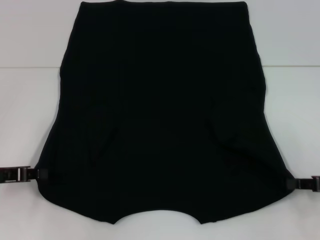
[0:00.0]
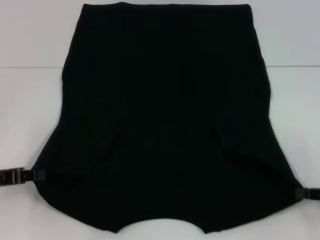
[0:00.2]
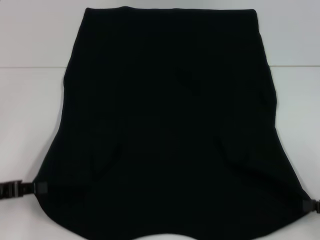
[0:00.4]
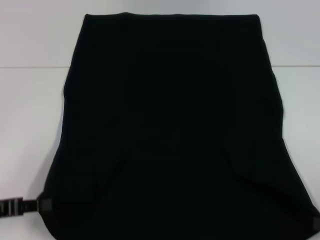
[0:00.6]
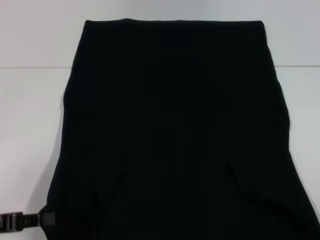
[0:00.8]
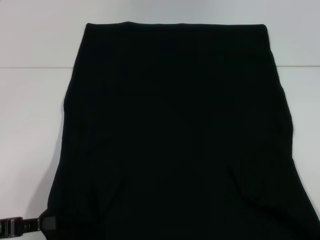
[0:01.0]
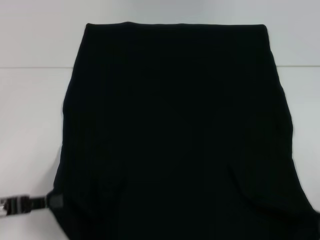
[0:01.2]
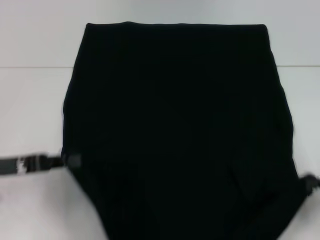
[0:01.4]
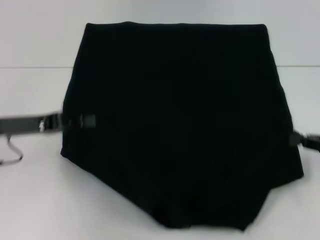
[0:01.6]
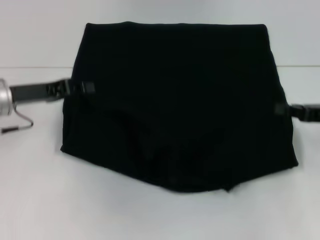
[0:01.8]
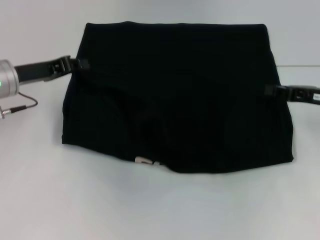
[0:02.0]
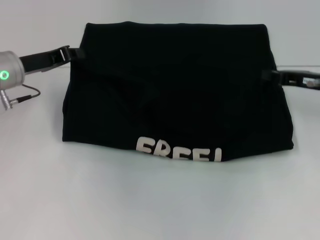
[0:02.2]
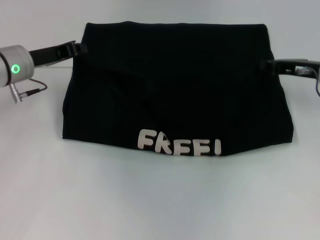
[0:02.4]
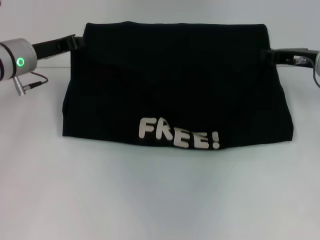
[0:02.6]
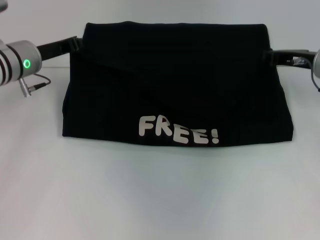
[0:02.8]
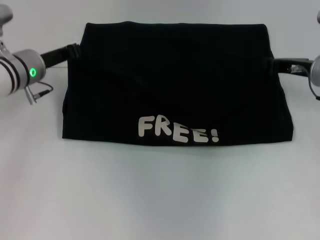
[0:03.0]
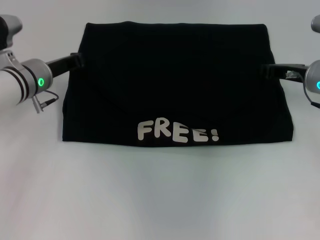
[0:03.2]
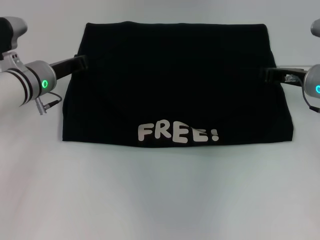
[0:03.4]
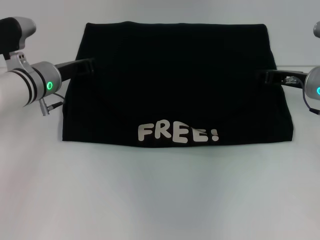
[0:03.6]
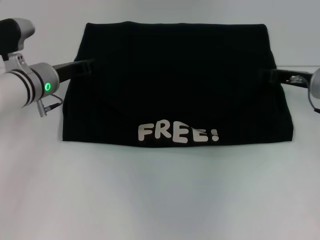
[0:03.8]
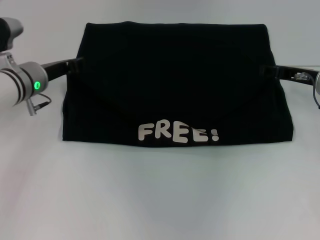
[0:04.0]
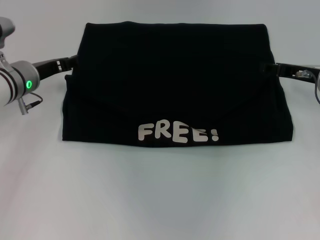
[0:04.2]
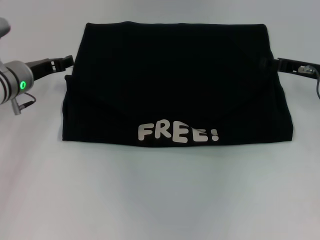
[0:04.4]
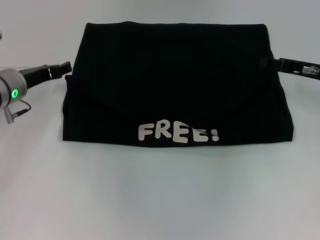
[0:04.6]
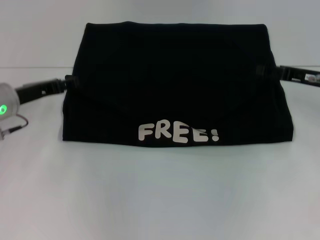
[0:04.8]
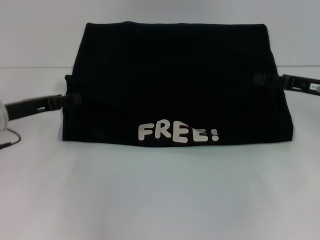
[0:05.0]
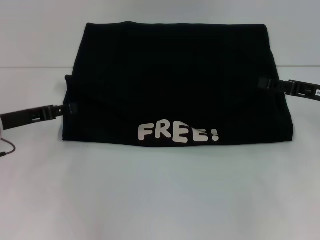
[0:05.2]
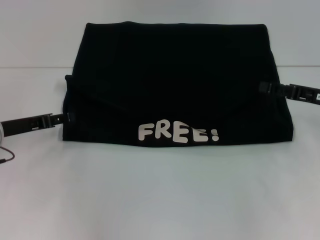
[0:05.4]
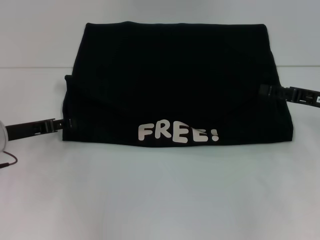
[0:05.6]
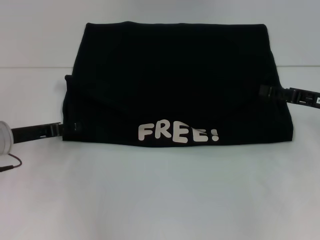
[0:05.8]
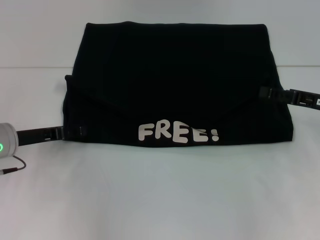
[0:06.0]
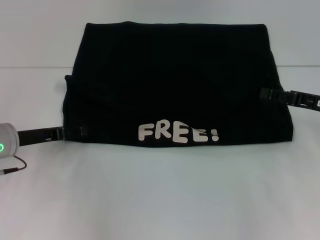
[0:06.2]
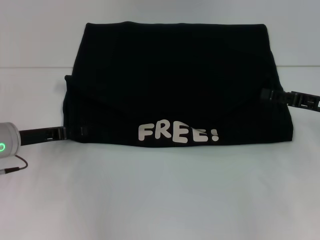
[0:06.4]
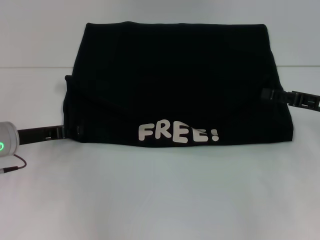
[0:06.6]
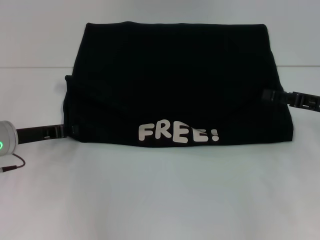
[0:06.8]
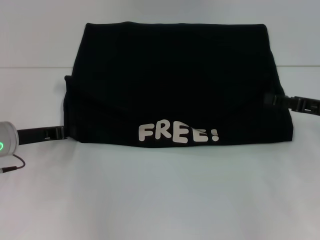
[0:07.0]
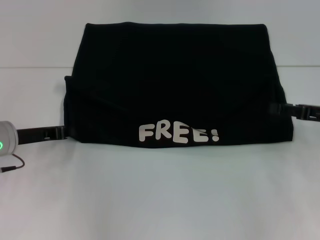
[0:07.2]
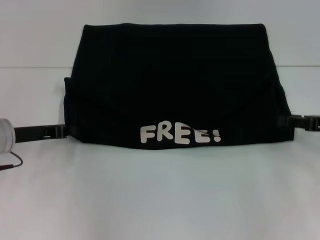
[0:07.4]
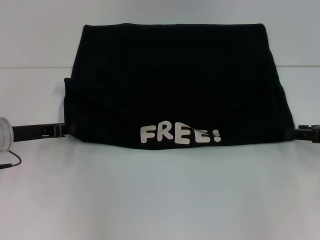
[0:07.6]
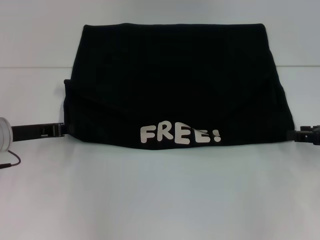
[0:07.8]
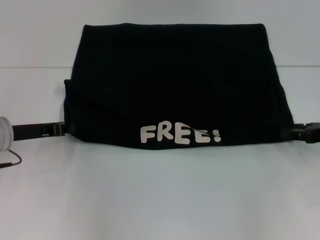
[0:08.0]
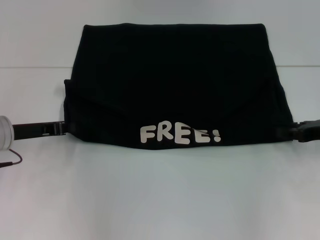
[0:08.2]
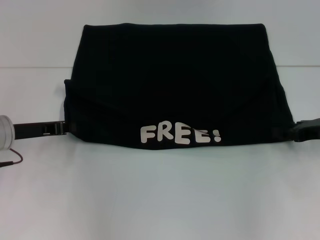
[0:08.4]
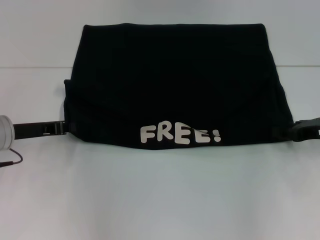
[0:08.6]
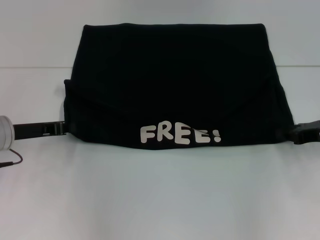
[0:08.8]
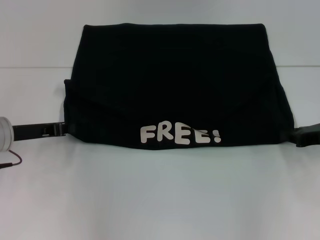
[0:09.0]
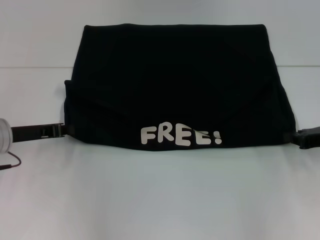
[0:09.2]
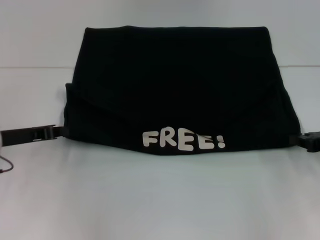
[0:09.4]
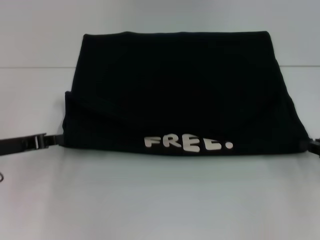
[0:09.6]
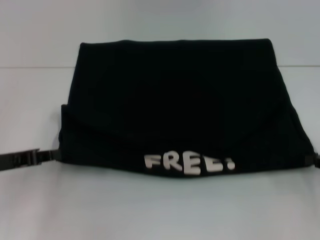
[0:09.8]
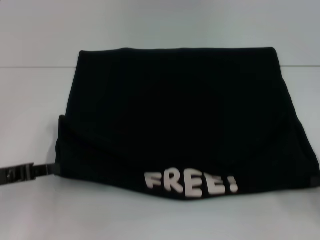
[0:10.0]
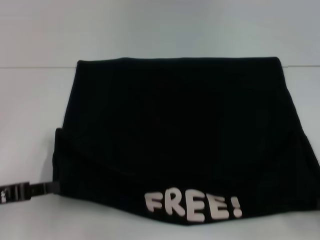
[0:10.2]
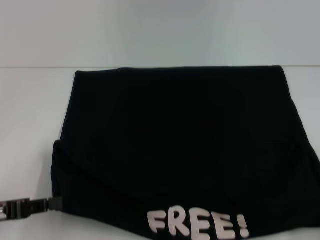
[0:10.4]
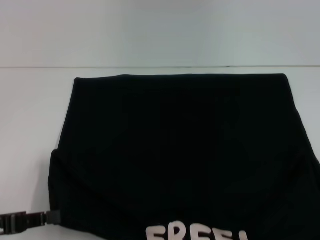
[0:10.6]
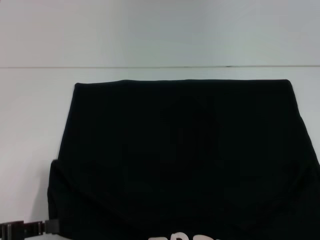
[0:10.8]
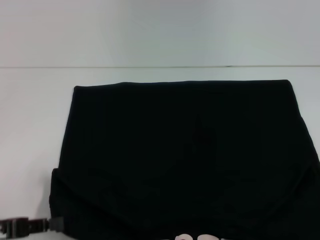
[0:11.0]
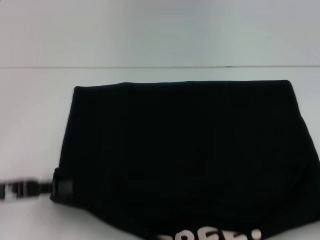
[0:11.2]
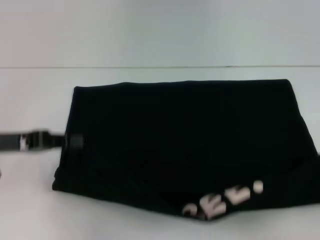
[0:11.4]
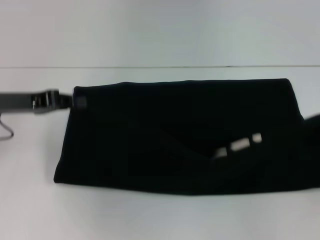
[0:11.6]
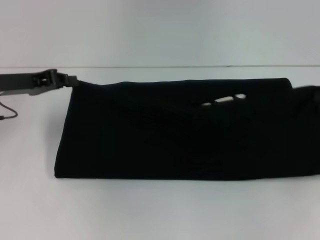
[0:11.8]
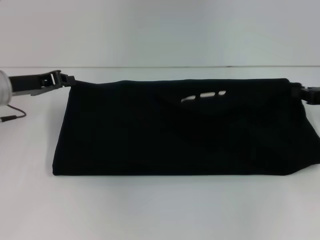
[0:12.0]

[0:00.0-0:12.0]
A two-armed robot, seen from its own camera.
Step, 0:00.0 to 0:04.0: Fold the clothes with your left hand.
Step, 0:00.0 to 0:04.0: Fold the clothes with your right hand.
Step, 0:04.2 to 0:10.8: Pull the clothes with your left hand.
Step, 0:04.2 to 0:10.8: Pull the clothes with your right hand.
0:00.0 to 0:01.6: The left gripper shifts by approximately 10 cm; the right gripper travels backward and back again, approximately 10 cm each way.
0:01.6 to 0:03.0: The left gripper travels forward by approximately 10 cm. Meanwhile the right gripper travels forward and to the left by roughly 15 cm.
0:03.0 to 0:04.4: The left gripper opens up. Meanwhile the right gripper opens up.
0:04.4 to 0:06.0: The grippers both shift backward by approximately 10 cm.
0:06.0 to 0:07.6: The left gripper closes its fingers.
0:07.6 to 0:09.0: The grippers move only a little.
0:09.0 to 0:10.4: The left gripper travels backward by roughly 15 cm, while the right gripper moves backward and to the right, approximately 20 cm.
0:10.4 to 0:12.0: The two grippers go some 20 cm forward.

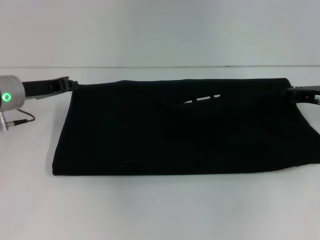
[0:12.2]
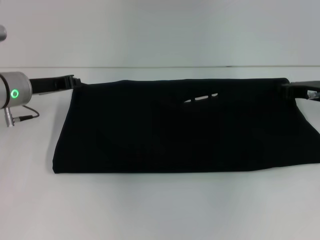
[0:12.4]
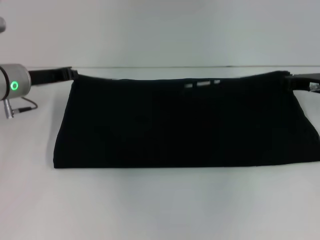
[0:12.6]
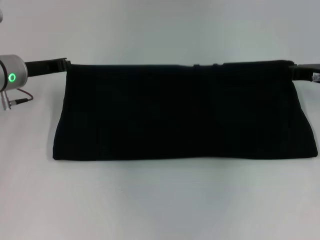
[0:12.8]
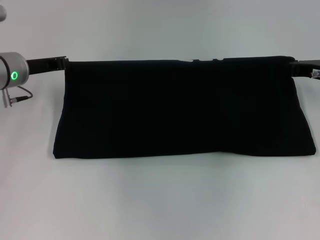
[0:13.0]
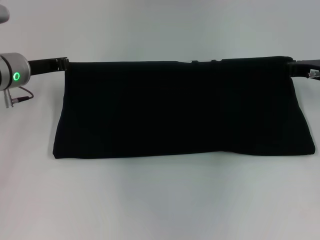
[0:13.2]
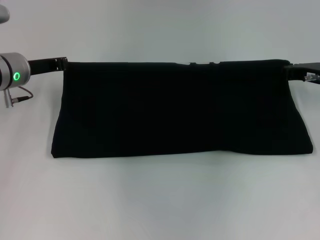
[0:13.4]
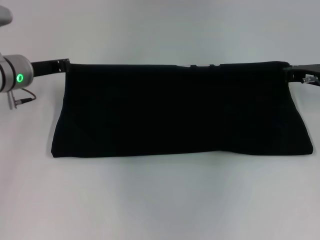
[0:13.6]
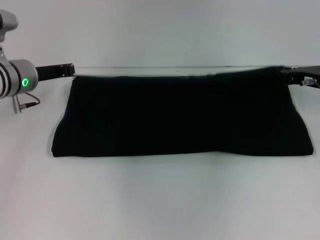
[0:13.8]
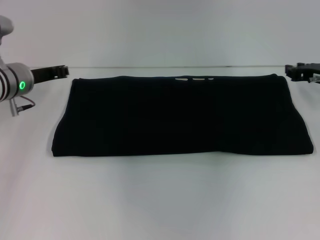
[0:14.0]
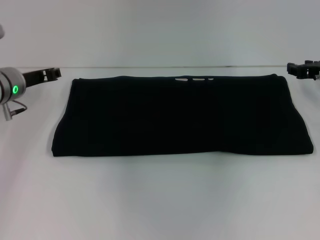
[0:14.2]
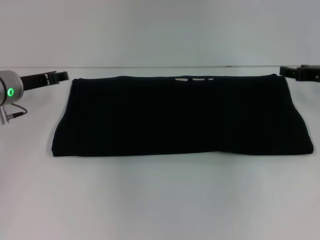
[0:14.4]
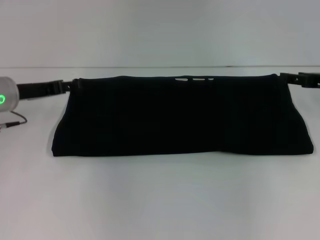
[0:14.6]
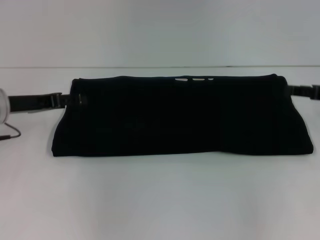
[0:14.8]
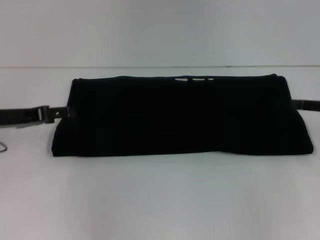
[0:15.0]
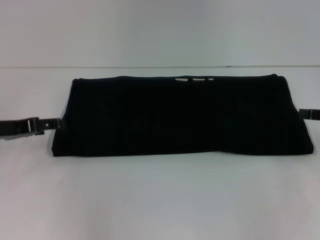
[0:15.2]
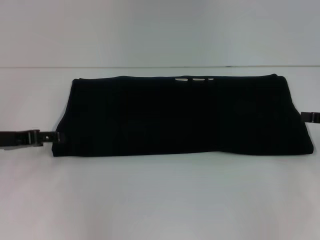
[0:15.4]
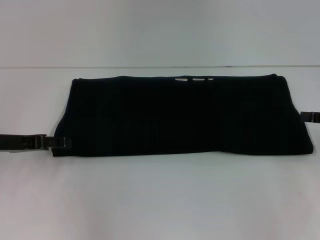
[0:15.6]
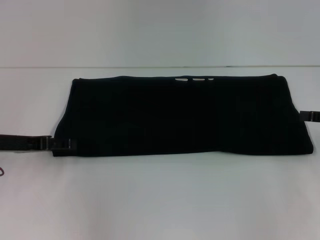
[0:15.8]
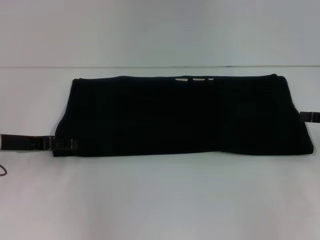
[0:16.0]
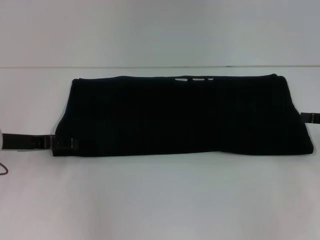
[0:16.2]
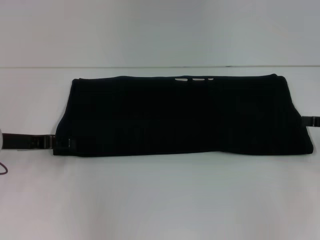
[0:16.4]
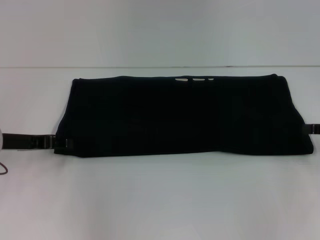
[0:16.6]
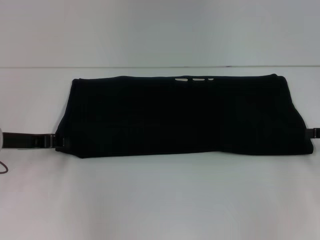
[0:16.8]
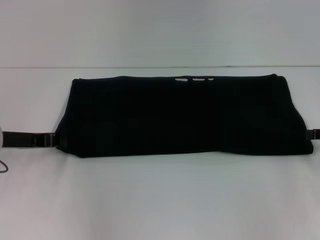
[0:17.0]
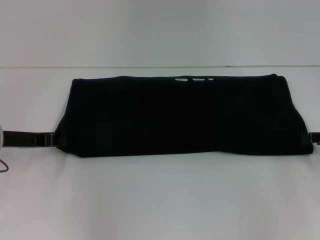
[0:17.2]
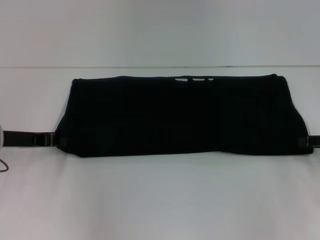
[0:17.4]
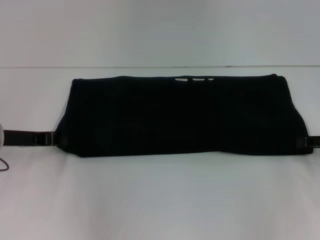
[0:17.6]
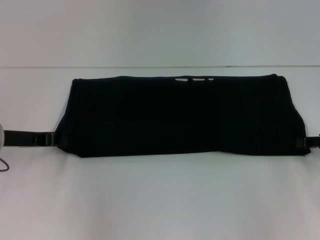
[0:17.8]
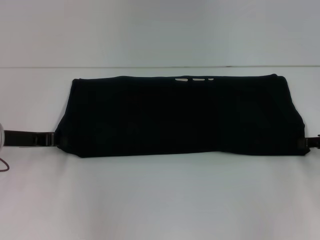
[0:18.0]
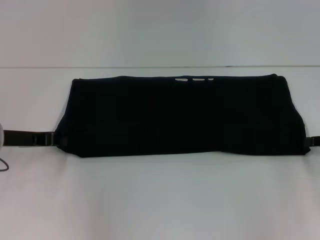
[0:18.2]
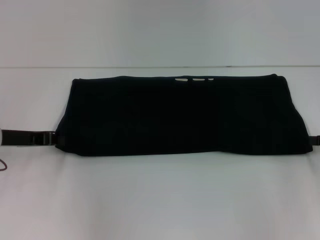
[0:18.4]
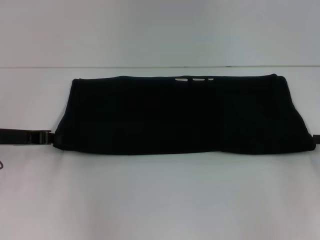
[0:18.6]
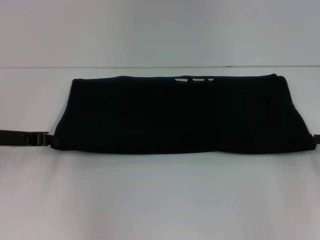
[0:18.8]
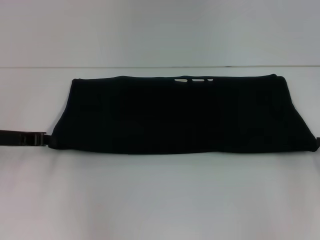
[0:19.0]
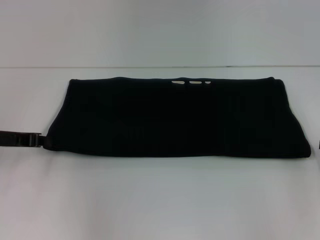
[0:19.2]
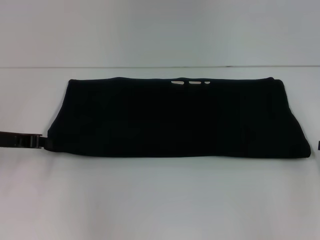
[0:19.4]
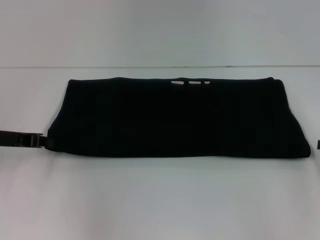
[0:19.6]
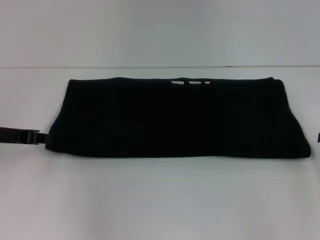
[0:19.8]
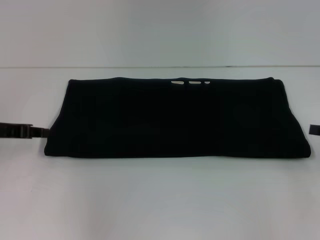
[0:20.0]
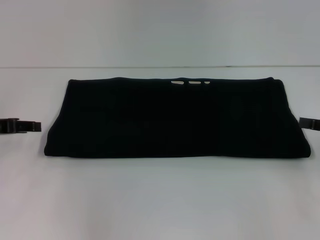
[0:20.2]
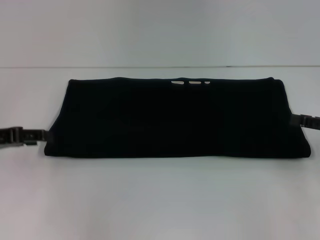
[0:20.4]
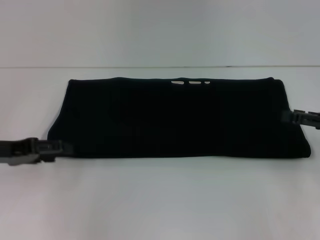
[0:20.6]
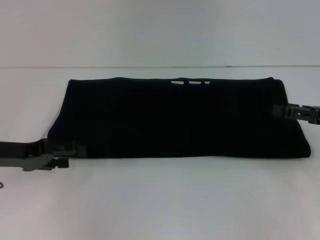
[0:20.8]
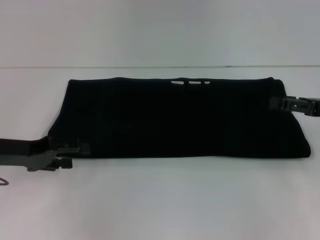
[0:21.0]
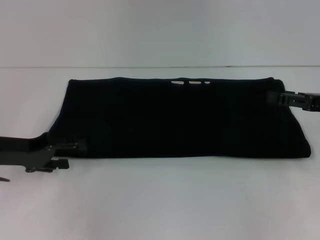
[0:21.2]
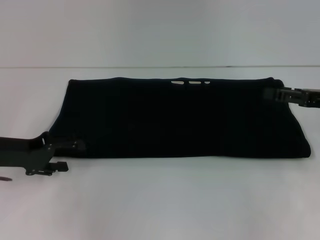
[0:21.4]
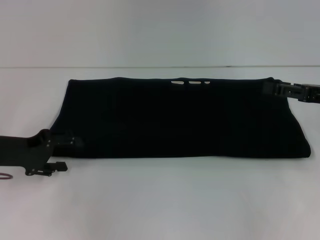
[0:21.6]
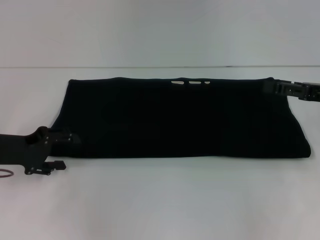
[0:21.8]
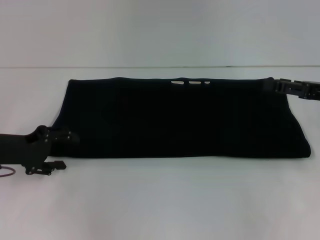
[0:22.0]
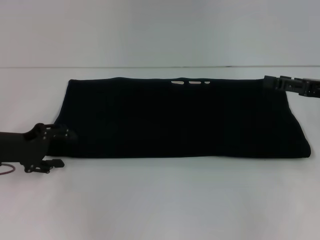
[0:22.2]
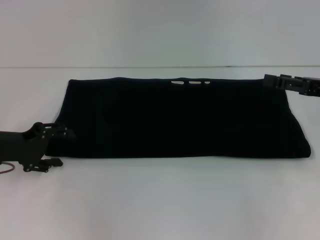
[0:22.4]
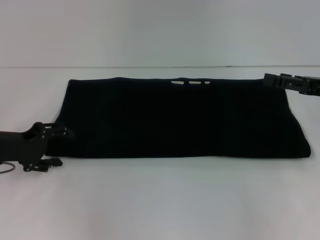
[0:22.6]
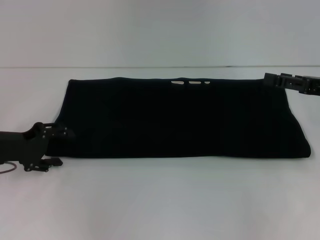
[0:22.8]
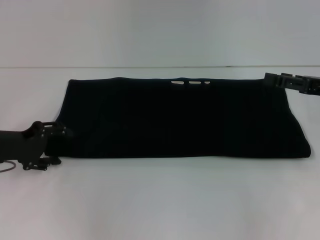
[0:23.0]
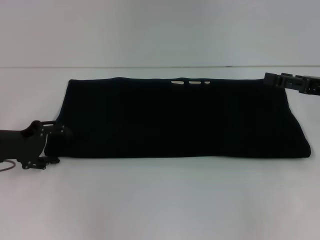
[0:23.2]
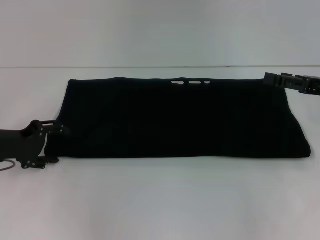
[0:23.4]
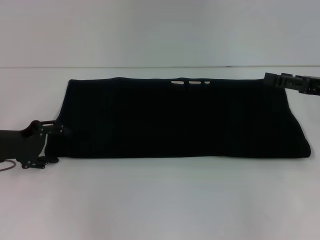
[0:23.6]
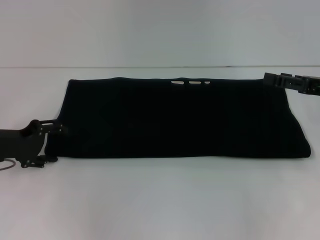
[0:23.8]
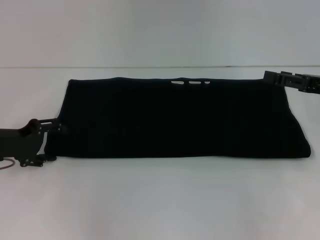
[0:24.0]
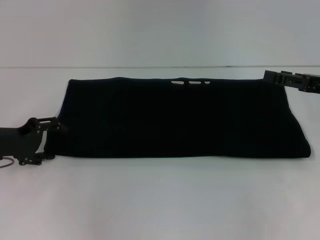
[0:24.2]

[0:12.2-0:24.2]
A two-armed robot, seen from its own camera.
Step, 0:12.2 to 0:14.2: Fold the clothes with your right hand.
0:12.2 to 0:13.8: There are only small adjustments of the grippers.
0:13.8 to 0:15.2: The right gripper goes some 15 cm backward and to the right, and opens up; the left gripper heads backward and to the left, covering about 10 cm, and opens its fingers.
0:15.2 to 0:16.6: The grippers move only a little.
0:16.6 to 0:18.2: The left gripper closes up.
0:18.2 to 0:19.8: The grippers move only a little.
0:19.8 to 0:21.2: The right gripper heads to the left, covering roughly 5 cm, and opens its fingers, while the left gripper opens its fingers.
0:22.6 to 0:24.2: The grippers move only a little.
